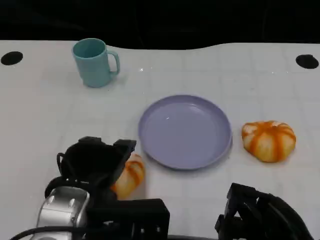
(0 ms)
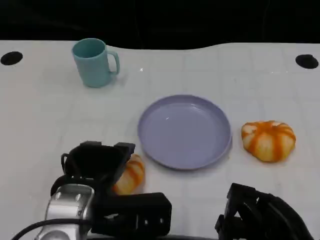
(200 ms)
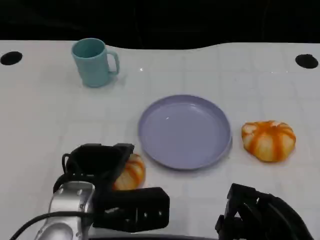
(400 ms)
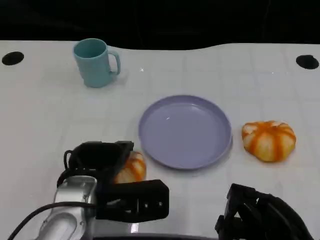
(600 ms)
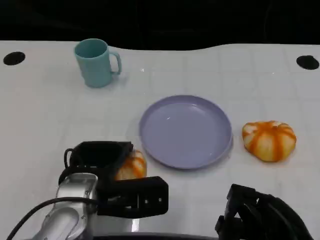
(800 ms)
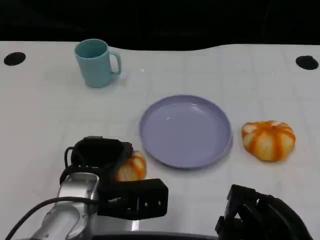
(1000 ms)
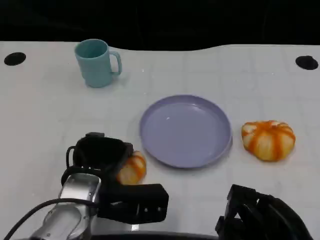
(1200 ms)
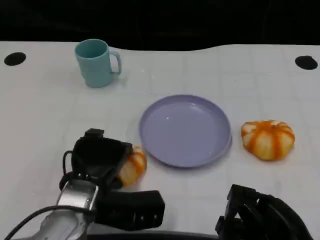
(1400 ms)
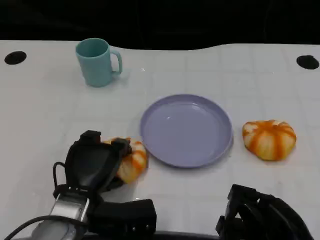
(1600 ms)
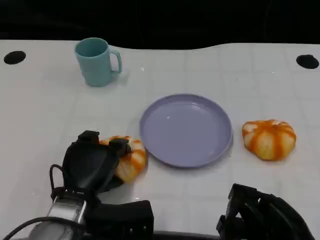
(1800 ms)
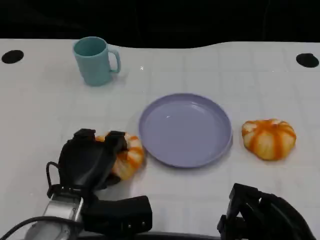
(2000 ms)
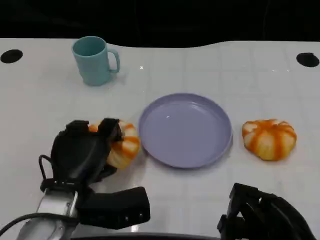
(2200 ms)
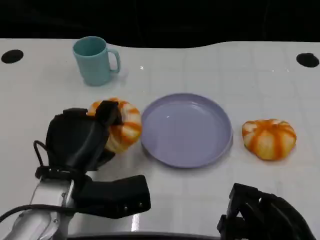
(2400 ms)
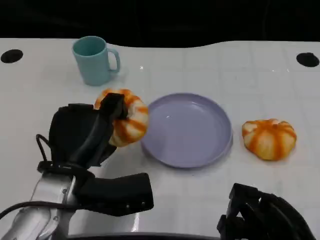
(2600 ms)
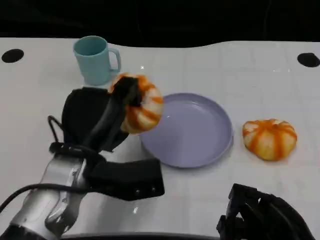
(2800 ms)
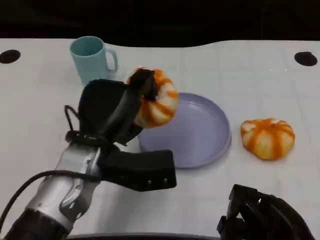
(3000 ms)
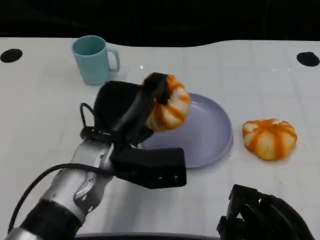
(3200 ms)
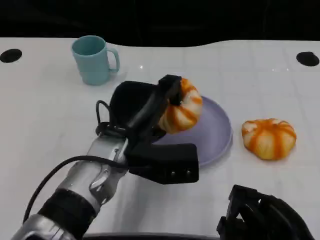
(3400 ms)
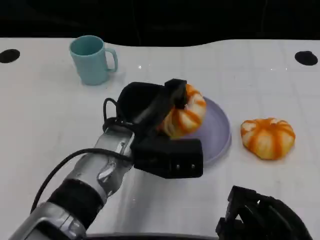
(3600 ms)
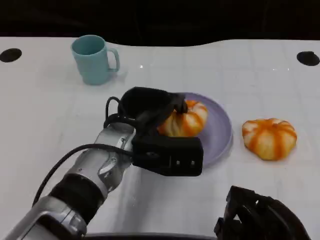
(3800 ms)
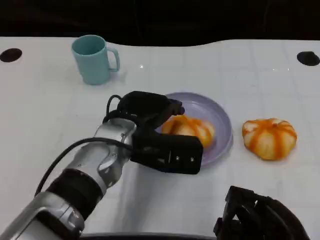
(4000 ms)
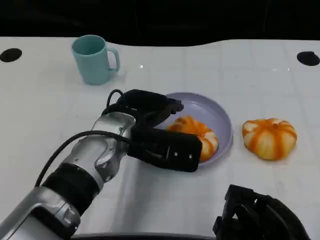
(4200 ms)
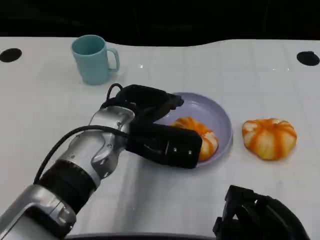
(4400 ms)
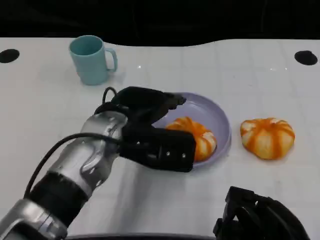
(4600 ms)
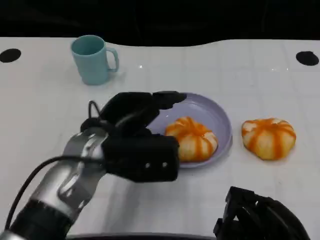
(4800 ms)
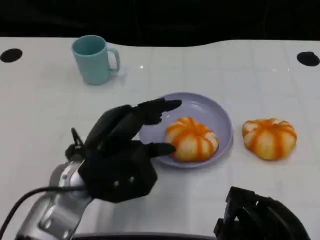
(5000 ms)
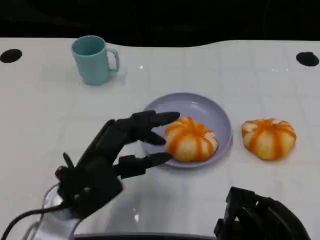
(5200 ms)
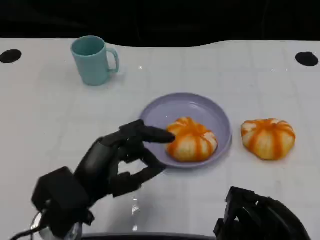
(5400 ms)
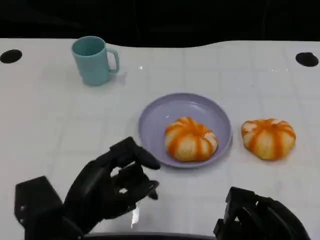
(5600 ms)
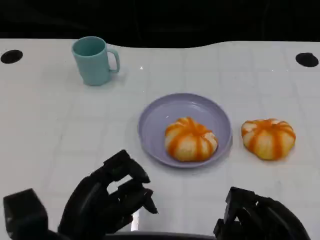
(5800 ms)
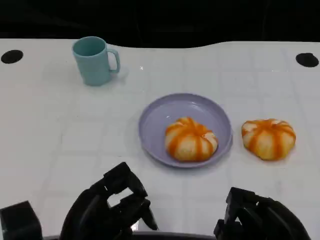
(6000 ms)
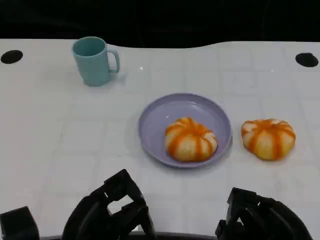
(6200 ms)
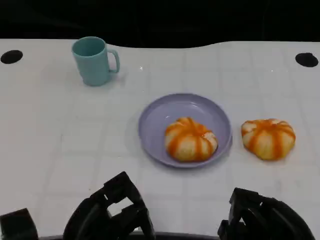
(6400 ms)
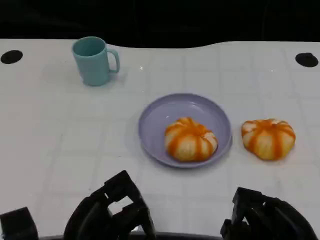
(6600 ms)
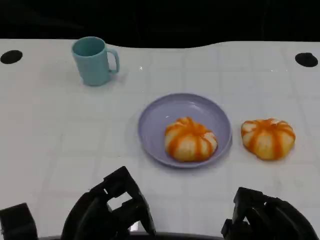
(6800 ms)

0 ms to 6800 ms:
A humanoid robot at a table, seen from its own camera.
Task of the whole recording: Grasp the bread from the table and place it into the plate.
0 ms to 1400 ms: The left hand shifts approximately 5 cm downward.
1400 ms to 2800 ms: The left hand is displaced upward by some 5 cm.
2800 ms to 4000 ms: The left hand moves to the right, roughly 5 cm.
4000 ms to 5400 ms: The left hand travels backward and to the left by roughly 15 cm.
5400 ms to 6800 ms: The left hand changes place by some 5 cm.

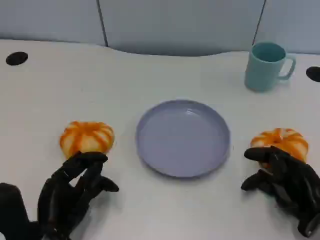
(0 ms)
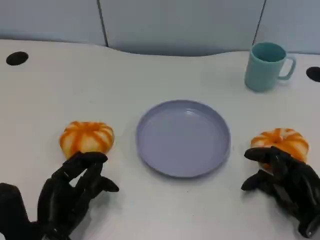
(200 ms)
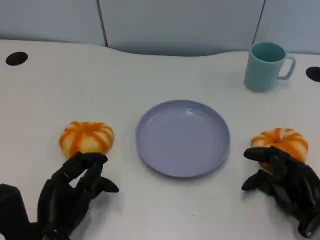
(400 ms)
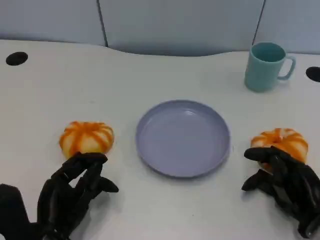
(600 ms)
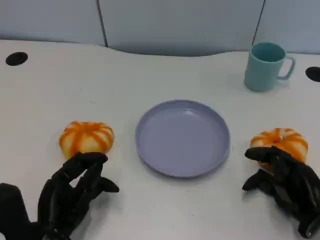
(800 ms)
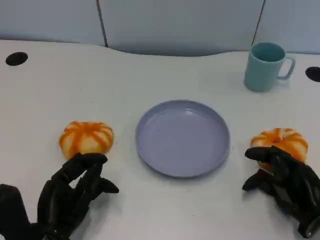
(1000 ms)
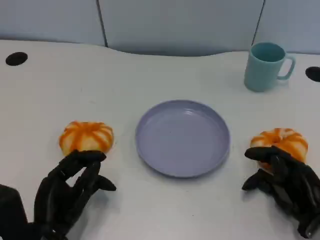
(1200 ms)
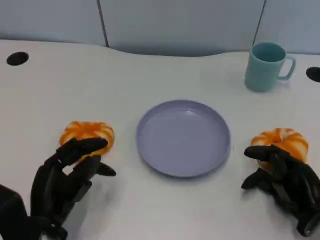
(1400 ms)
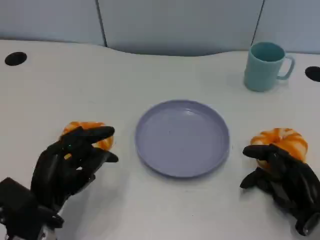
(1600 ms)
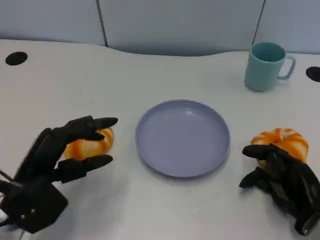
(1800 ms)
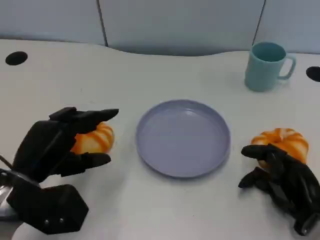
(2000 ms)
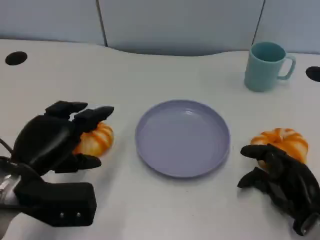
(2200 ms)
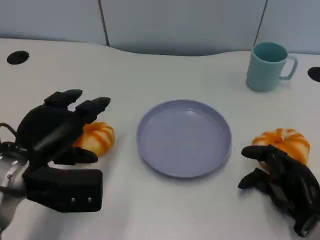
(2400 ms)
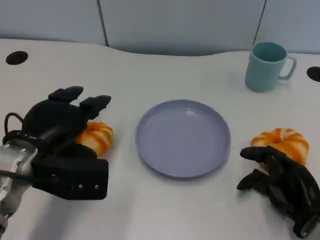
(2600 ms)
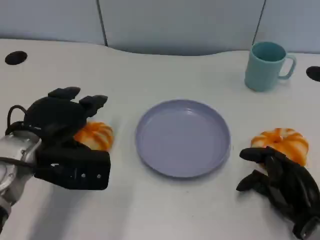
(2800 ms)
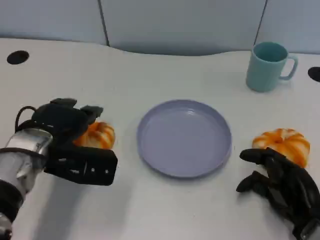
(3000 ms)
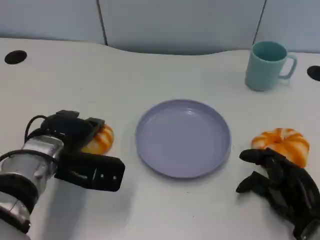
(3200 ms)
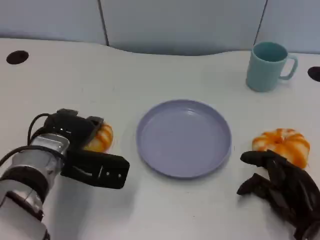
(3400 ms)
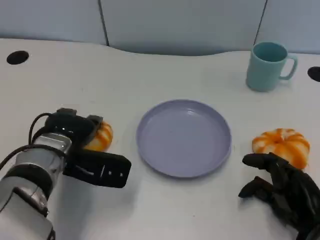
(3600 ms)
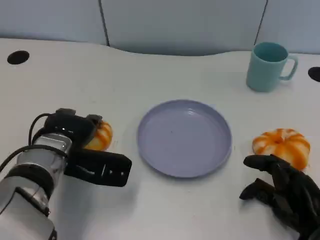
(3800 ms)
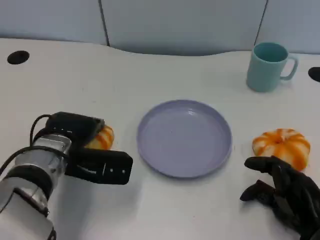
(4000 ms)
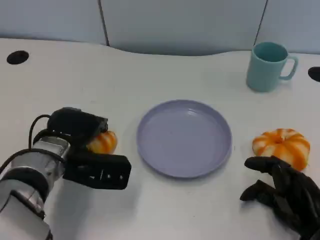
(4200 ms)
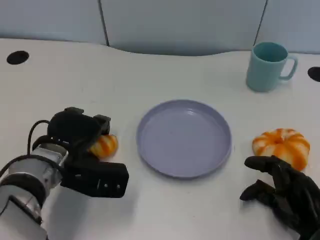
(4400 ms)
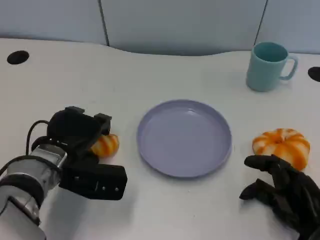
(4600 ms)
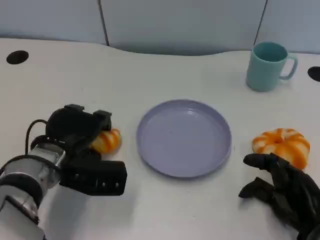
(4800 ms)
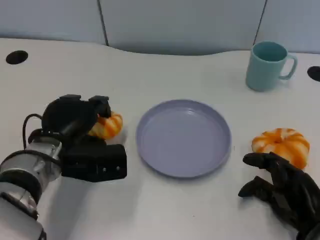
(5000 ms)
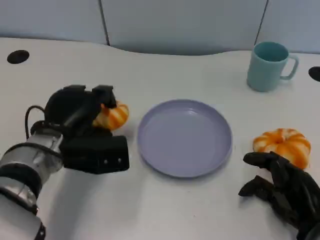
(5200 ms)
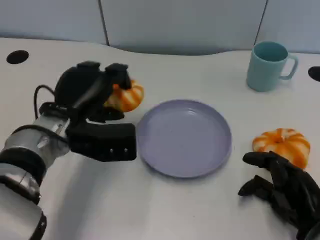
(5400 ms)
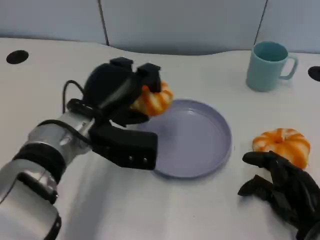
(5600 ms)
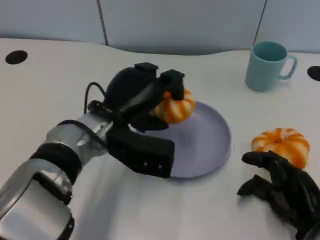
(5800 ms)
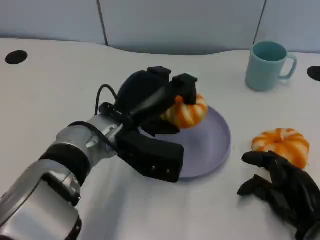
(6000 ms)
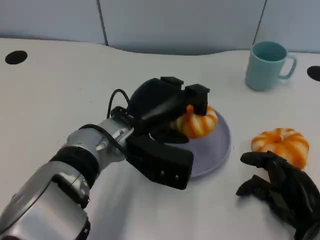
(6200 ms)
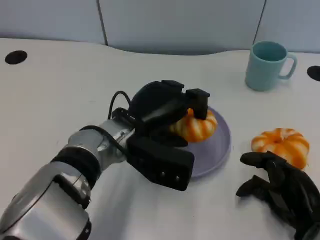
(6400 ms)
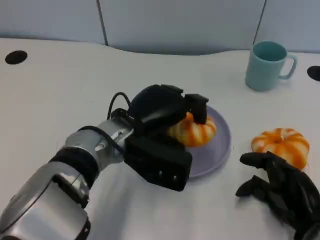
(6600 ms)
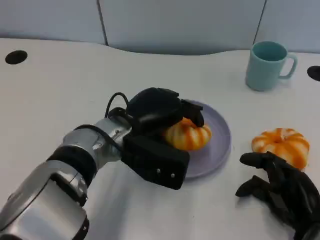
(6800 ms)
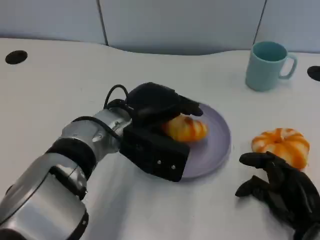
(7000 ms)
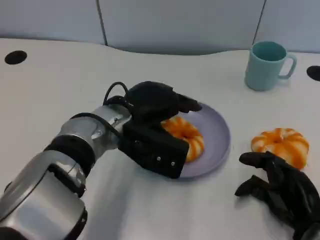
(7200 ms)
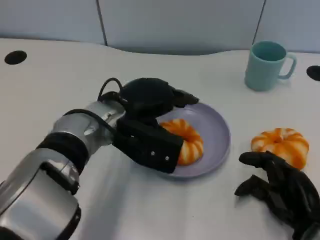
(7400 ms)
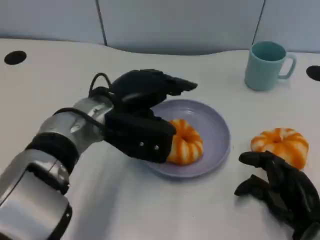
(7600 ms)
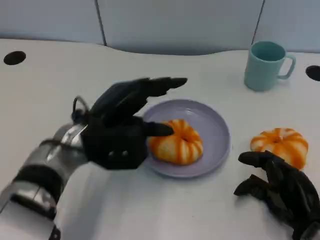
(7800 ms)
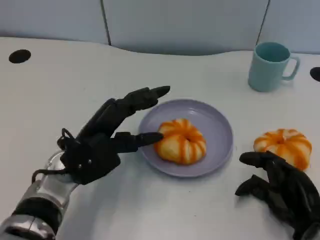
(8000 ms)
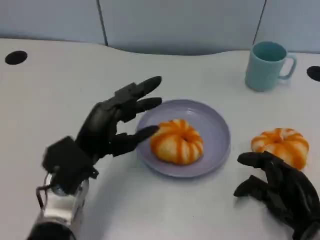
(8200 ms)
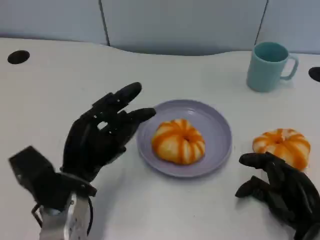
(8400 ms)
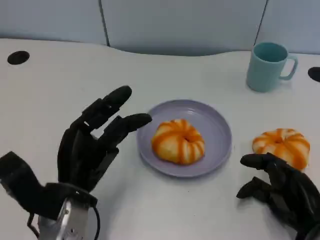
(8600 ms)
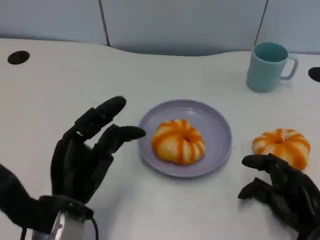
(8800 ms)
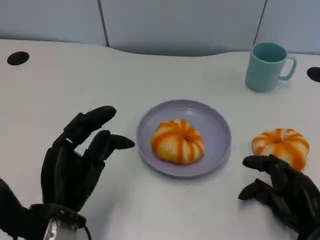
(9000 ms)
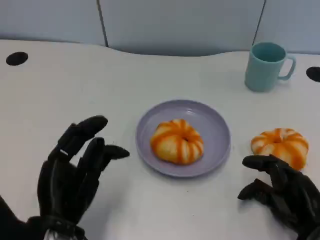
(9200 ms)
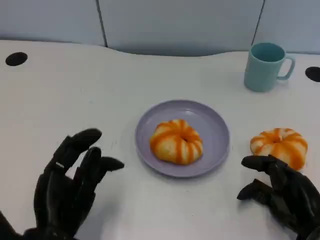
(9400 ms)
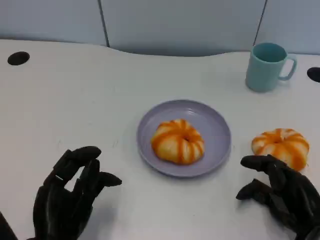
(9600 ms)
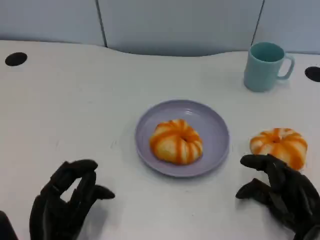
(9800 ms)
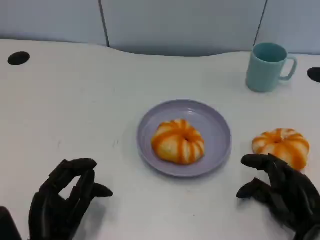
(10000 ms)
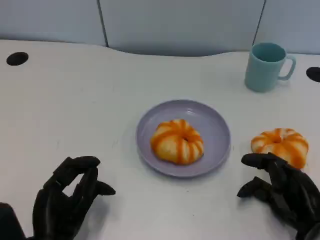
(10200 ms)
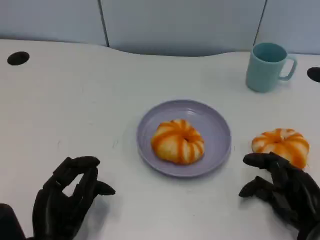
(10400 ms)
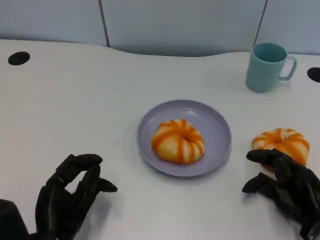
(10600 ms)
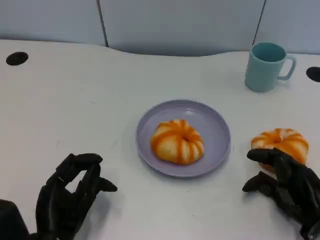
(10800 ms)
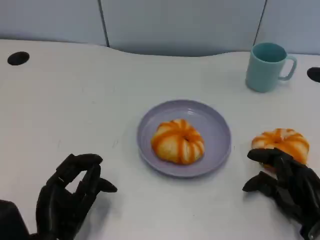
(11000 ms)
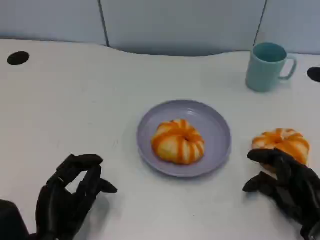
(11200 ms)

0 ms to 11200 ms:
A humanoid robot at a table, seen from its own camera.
Task of the whole recording: Grasp the bread from the table and place it into the plate.
1600 ms to 3200 ms: The left hand heads forward, covering about 10 cm.
4800 ms to 6400 ms: The left hand is displaced to the right by some 10 cm.
6400 ms to 8000 ms: The left hand shifts some 10 cm to the left.
8000 ms to 9600 ms: The left hand shifts approximately 10 cm backward.
9600 ms to 11200 ms: There are only small adjustments of the hands.

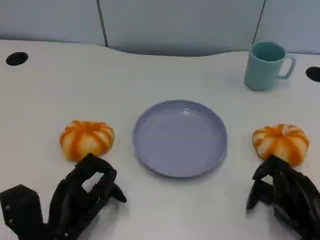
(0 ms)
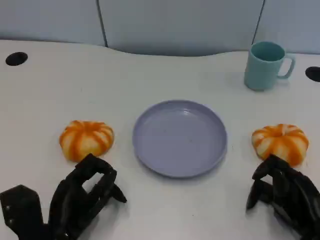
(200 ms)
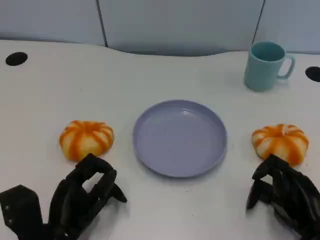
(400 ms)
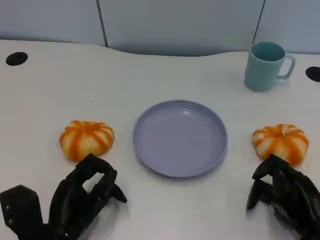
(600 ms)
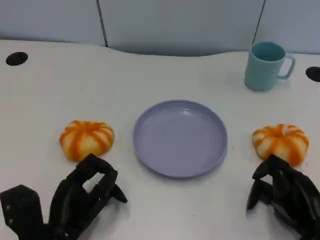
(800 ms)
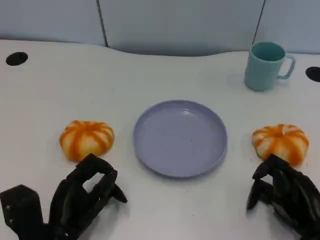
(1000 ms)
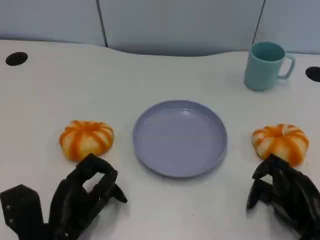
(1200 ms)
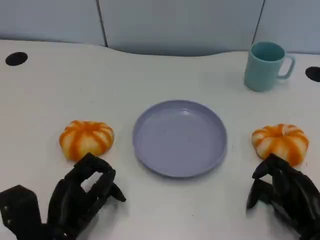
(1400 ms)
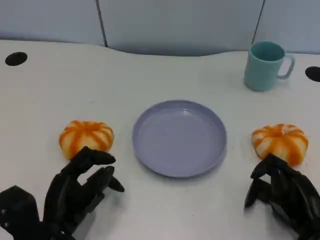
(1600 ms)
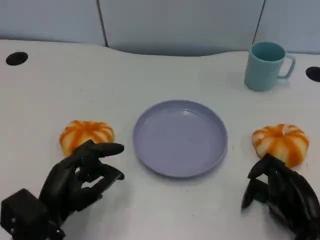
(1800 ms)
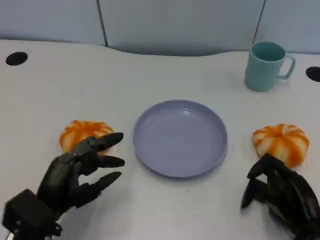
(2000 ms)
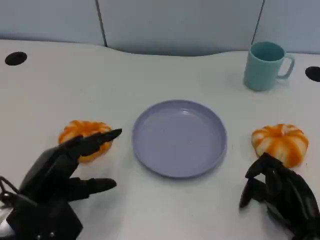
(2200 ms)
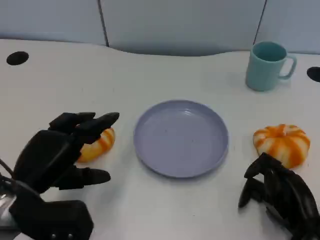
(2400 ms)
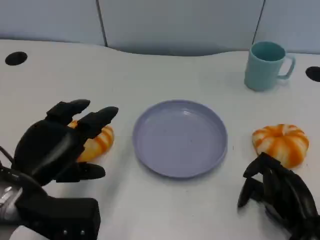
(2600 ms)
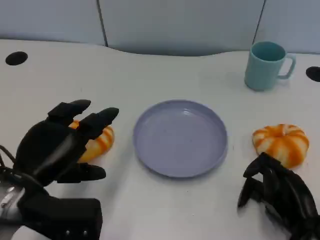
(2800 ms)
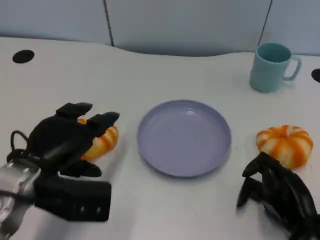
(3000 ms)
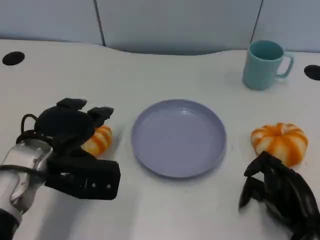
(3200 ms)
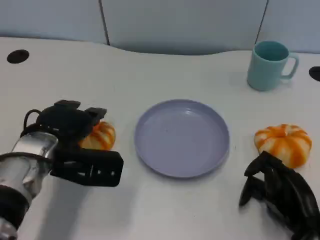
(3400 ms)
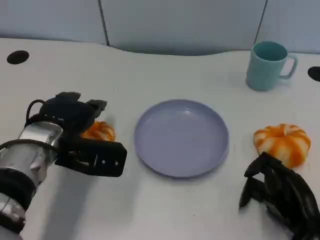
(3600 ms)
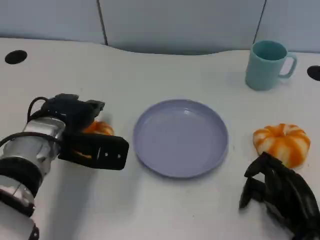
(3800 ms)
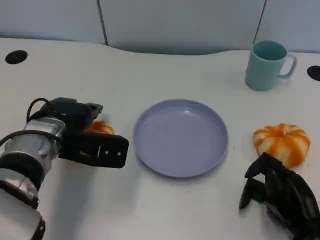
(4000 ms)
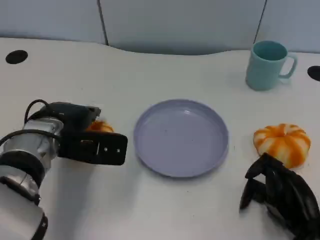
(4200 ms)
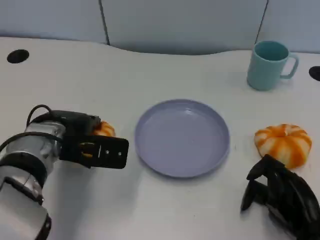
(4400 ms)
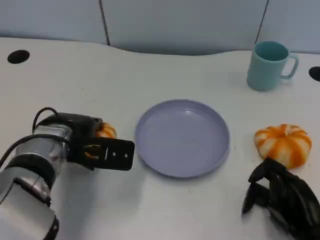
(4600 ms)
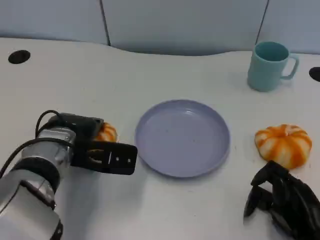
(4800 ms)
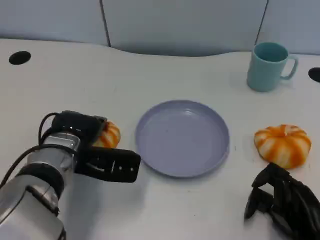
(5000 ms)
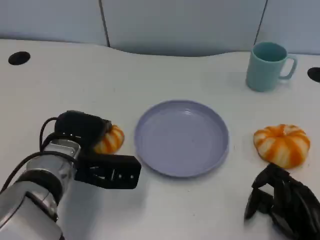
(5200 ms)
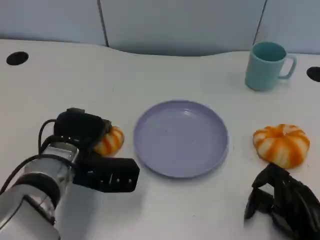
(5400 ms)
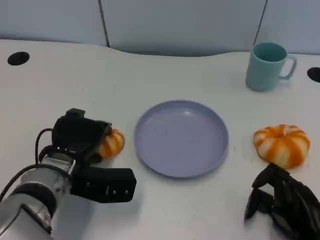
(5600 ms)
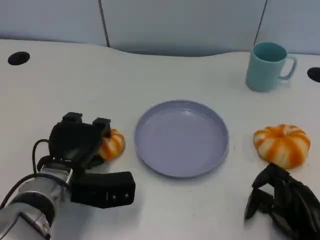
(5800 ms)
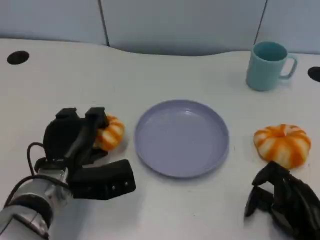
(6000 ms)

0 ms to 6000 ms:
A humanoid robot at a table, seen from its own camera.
Task of the whole recording: Grasp the bread from the table and place it into the plate.
0 ms to 1600 ms: The hands move only a little.
1600 ms to 3000 ms: The left hand heads upward and forward, covering about 10 cm.
3000 ms to 4400 ms: The left hand goes some 5 cm forward.
4400 ms to 6000 ms: The left hand shifts approximately 5 cm downward.
